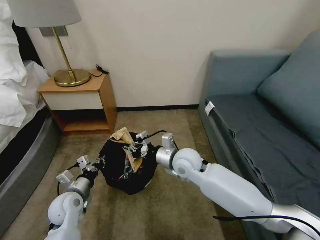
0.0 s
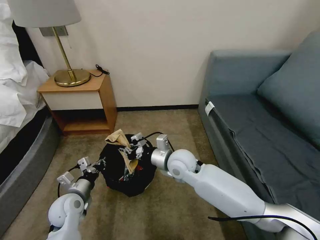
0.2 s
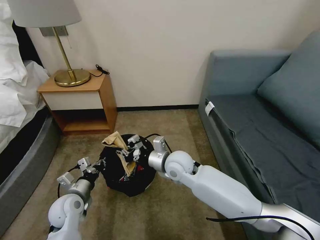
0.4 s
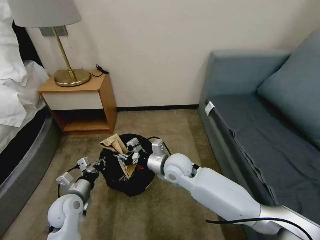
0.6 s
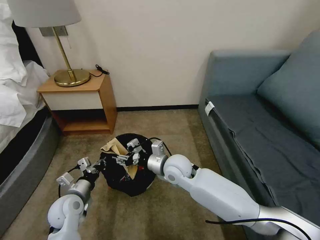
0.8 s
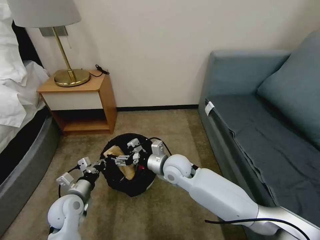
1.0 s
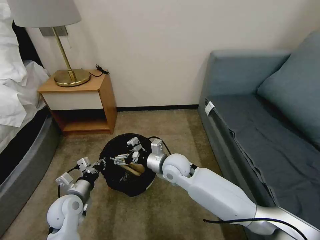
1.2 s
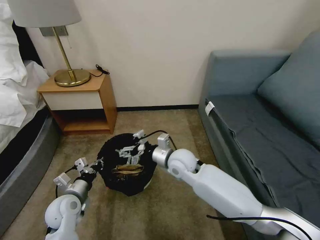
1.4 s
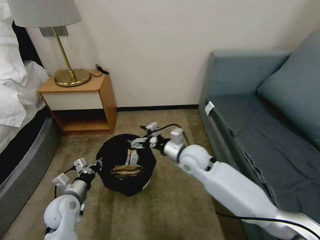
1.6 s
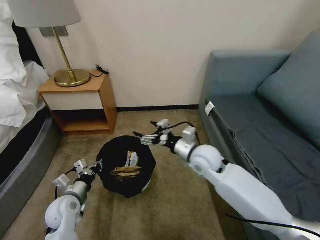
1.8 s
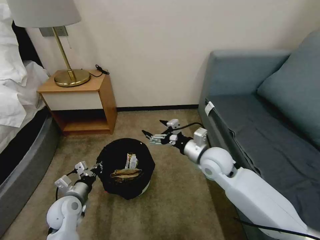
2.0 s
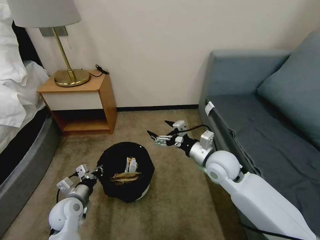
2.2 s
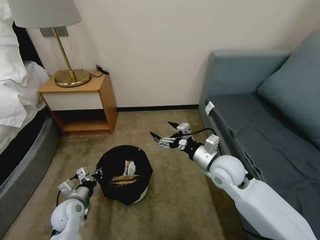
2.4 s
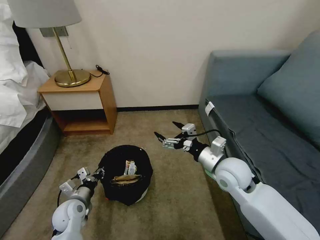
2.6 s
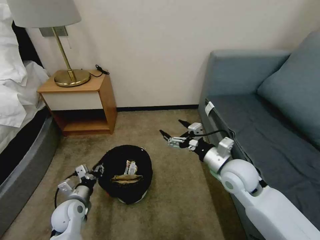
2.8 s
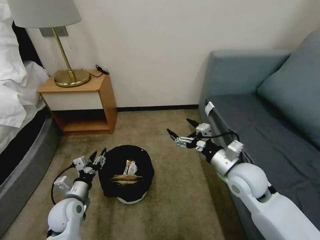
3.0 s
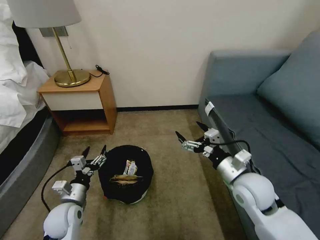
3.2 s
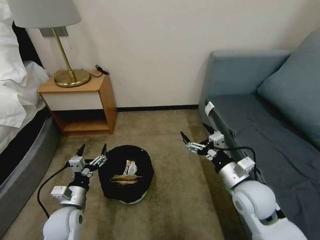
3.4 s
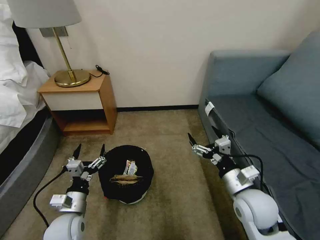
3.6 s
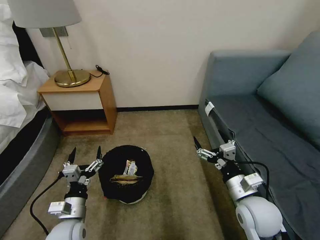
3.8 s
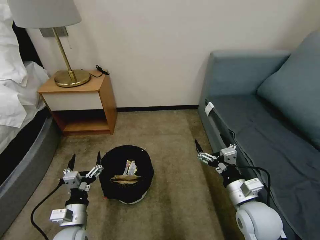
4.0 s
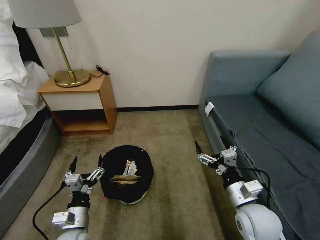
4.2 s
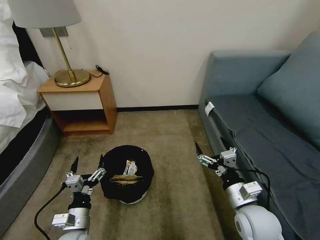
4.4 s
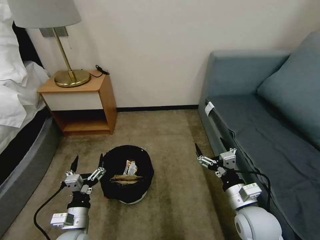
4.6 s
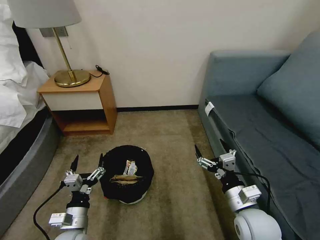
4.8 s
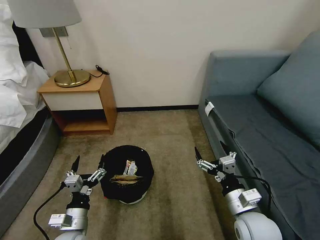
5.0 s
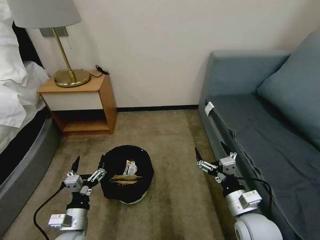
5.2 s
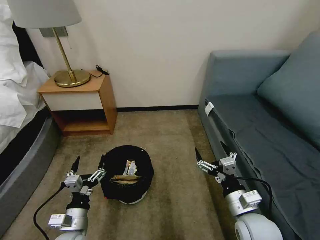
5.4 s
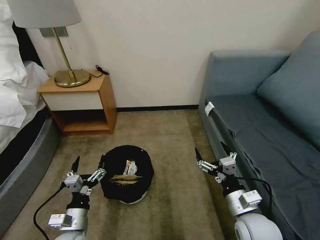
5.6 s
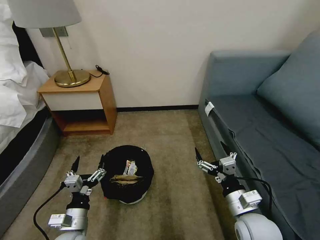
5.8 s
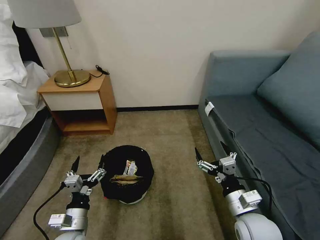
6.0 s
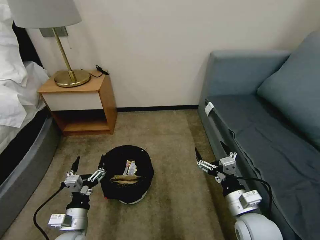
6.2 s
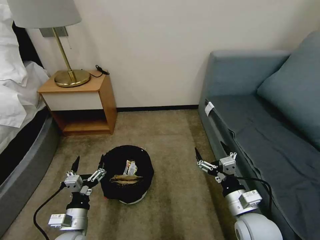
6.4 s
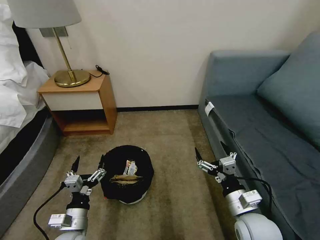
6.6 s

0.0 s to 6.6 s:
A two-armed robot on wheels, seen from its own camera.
Task of the whole recording: Pick up the trash bin, then pick up the garbage on the floor and place it into the trash bin.
0.0 to 1.6 s: The right gripper opens its fingers.
1.6 to 3.2 s: The left gripper opens up. Meanwhile the right gripper goes some 20 cm to the right and backward.
3.2 to 5.0 s: The right gripper heads backward and downward, covering some 10 cm; the left gripper goes roughly 10 cm backward.
5.0 to 6.6 s: Both grippers stay put.

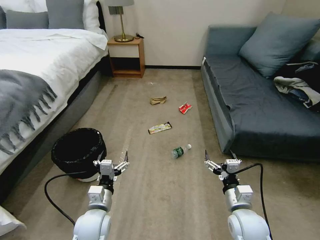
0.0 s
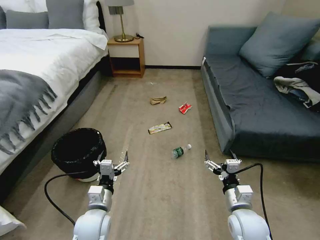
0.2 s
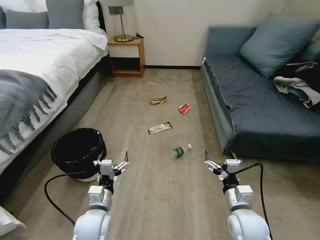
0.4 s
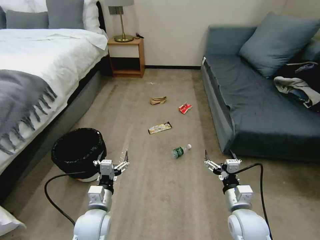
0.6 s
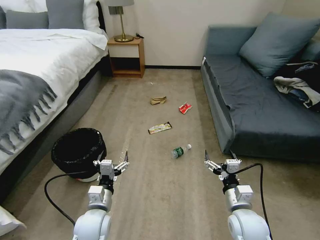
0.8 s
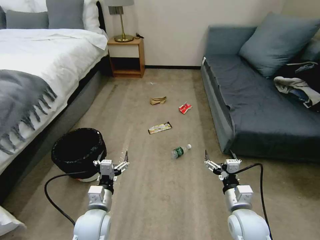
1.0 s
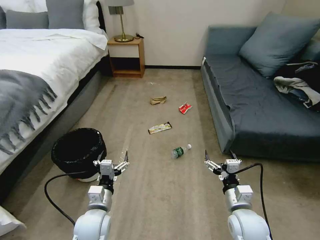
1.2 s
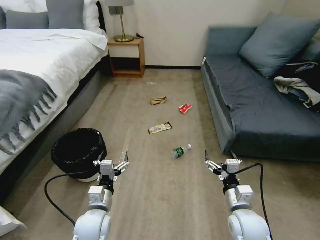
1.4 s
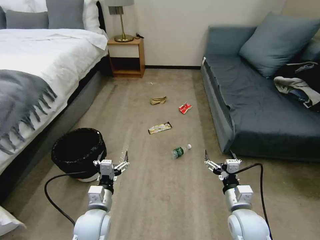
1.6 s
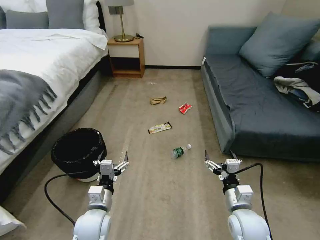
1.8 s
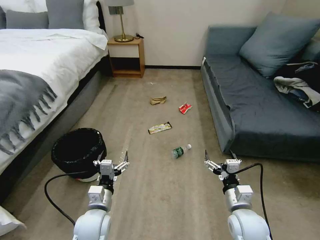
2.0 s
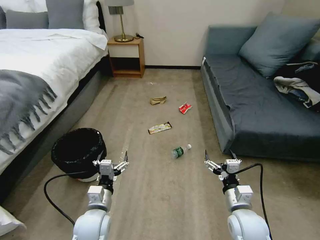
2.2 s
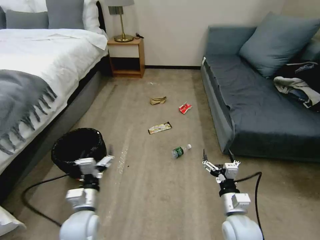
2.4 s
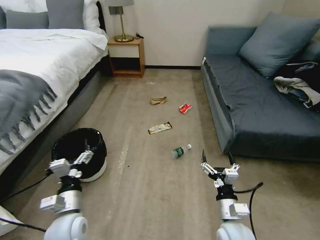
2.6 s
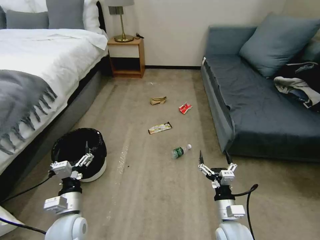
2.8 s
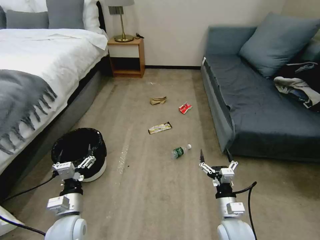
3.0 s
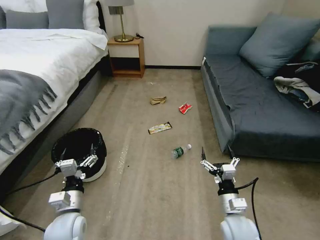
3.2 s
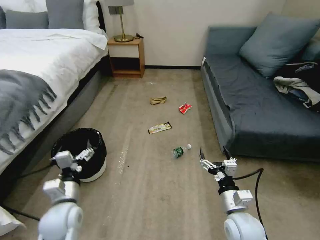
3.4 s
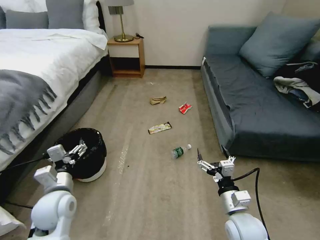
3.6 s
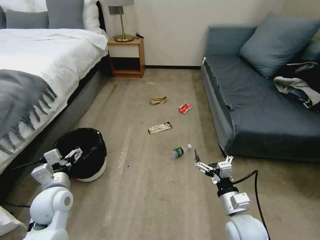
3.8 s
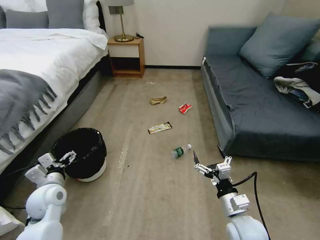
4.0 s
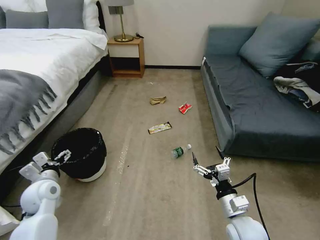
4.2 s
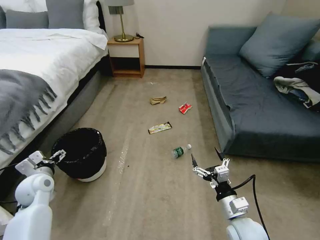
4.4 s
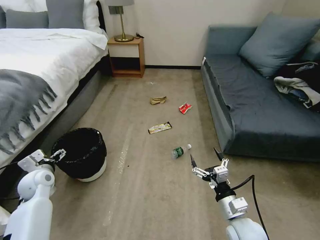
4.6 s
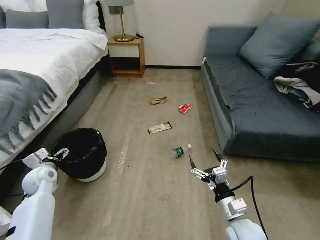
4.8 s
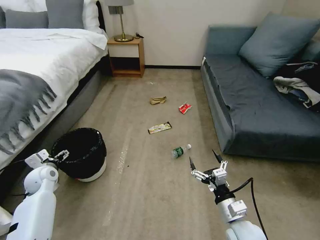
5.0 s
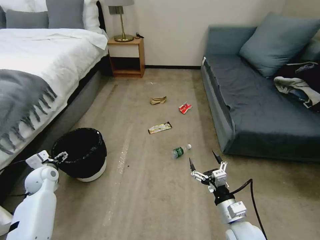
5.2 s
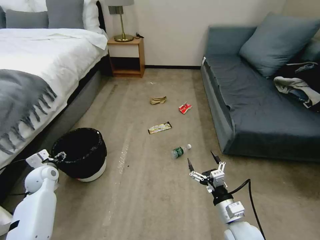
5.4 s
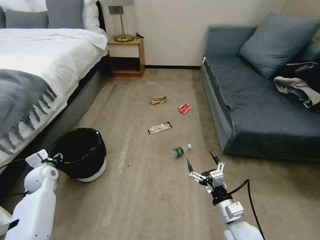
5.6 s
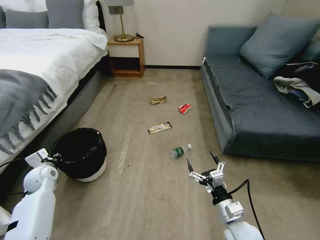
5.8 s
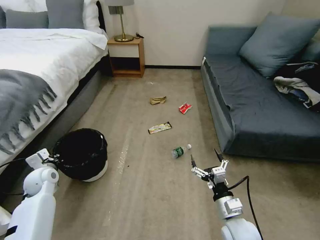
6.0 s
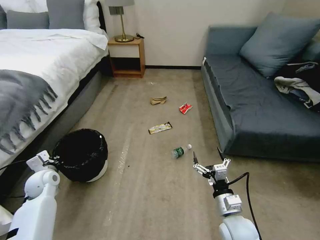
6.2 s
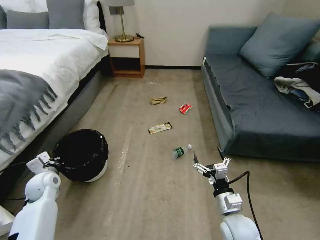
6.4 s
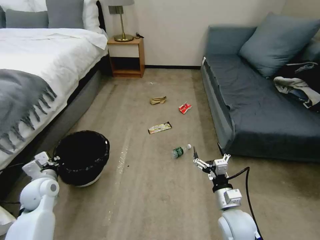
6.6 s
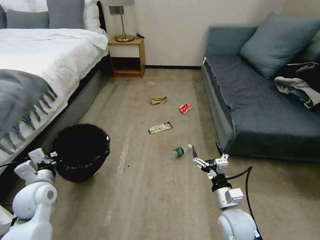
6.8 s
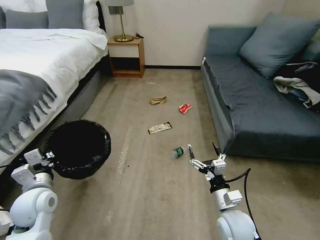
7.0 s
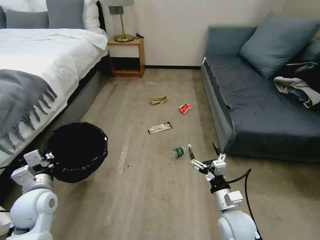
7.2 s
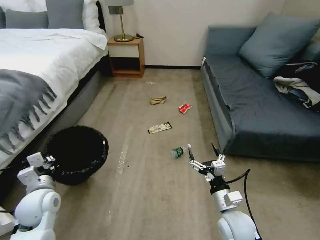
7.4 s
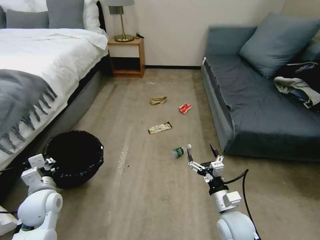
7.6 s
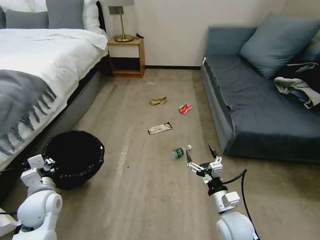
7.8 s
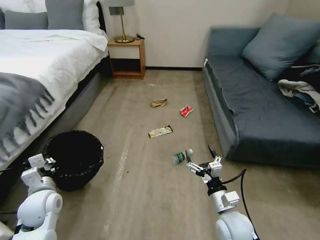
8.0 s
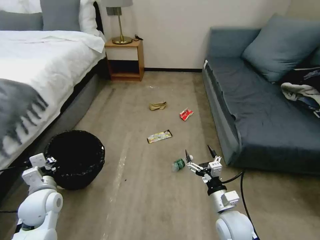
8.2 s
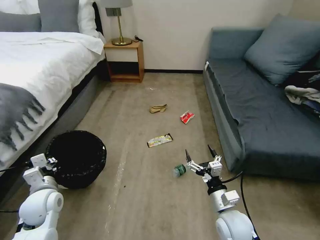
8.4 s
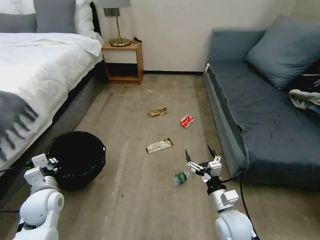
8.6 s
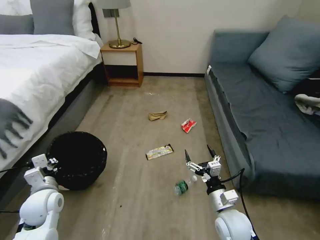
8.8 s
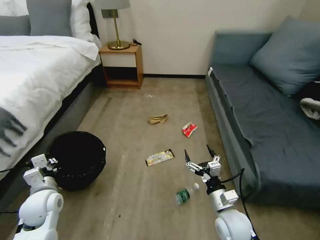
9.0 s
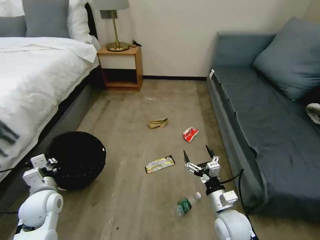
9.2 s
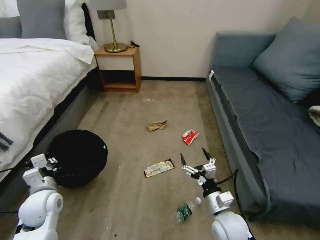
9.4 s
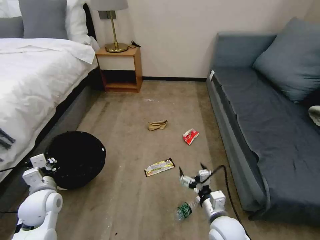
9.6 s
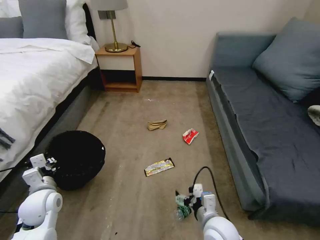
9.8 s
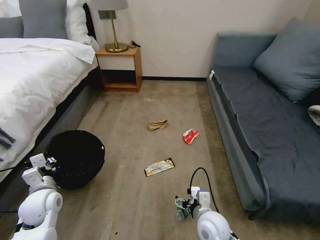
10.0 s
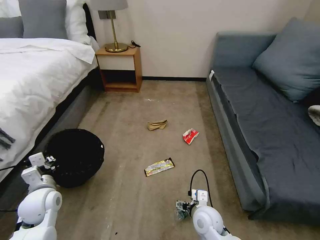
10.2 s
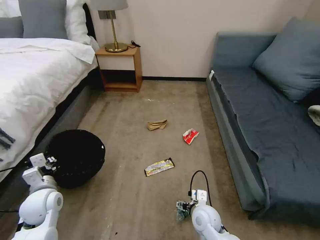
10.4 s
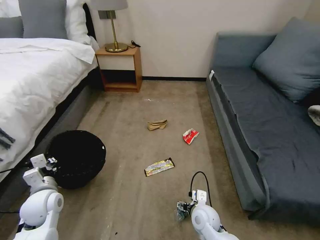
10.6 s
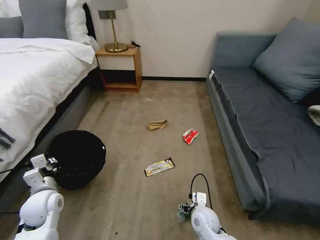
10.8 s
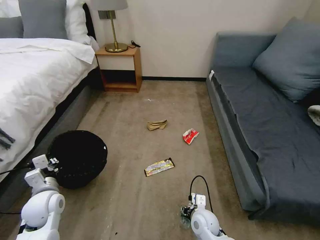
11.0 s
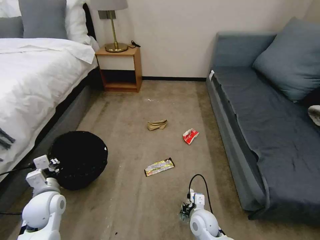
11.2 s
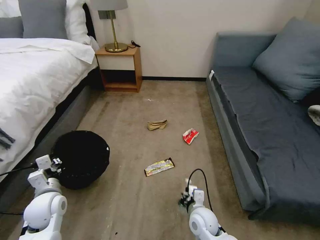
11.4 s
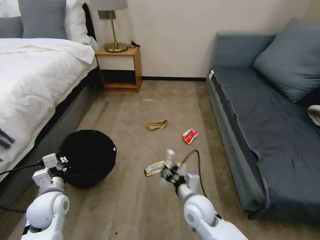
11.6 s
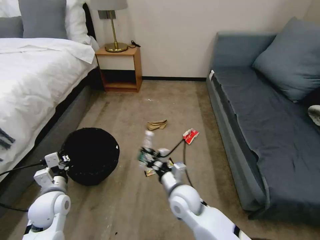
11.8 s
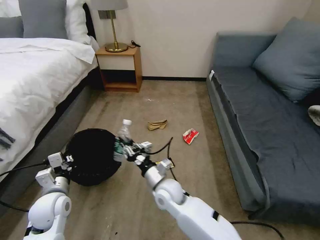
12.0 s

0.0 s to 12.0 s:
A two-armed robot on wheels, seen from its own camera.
Task of the whole recording: Pick up the trash bin, then pick up the garbage on the floor and place it into the trash bin.
1.6 to 3.0 s: The right gripper moves some 5 cm. The left gripper heads to the left, covering roughly 5 cm.
3.0 to 4.4 s: The left gripper is displaced to the left and forward by about 20 cm.
4.4 to 6.0 s: The left gripper moves roughly 5 cm, and closes.
6.0 to 7.6 s: The left gripper moves backward and to the right, some 10 cm.
9.0 to 10.4 s: The right gripper goes some 10 cm to the left and downward.
10.4 to 12.0 s: The right gripper goes approximately 15 cm to the left, upward and forward, and closes its fingers.

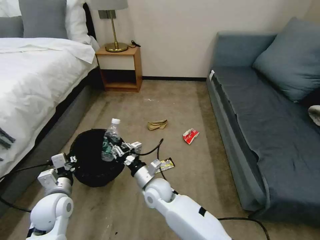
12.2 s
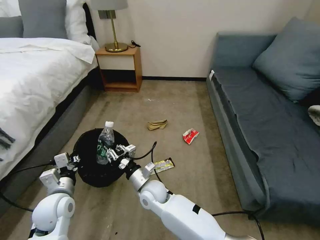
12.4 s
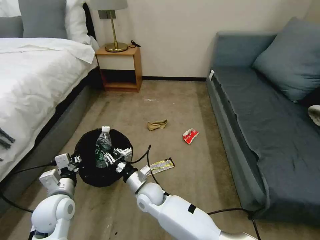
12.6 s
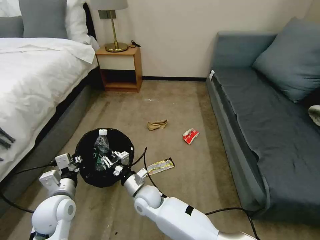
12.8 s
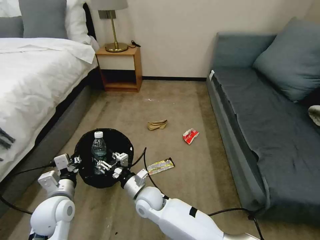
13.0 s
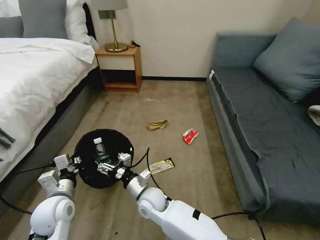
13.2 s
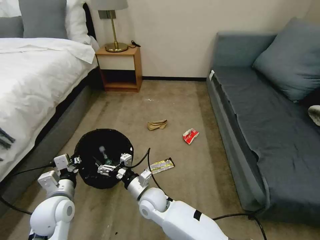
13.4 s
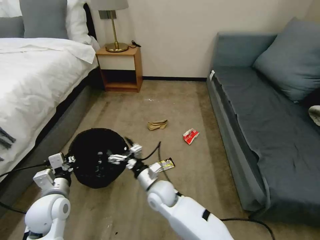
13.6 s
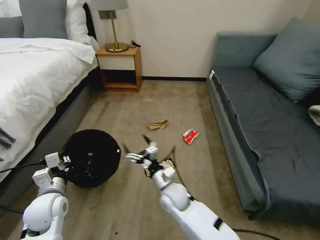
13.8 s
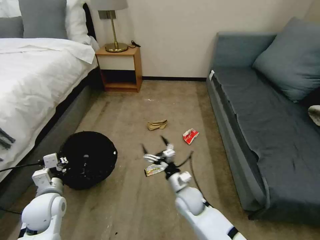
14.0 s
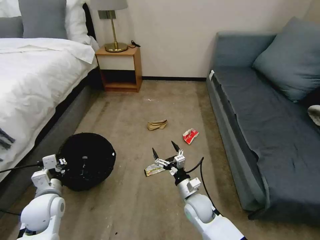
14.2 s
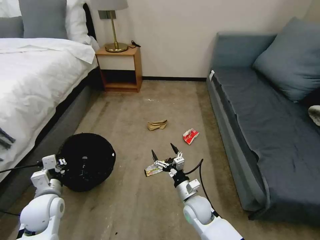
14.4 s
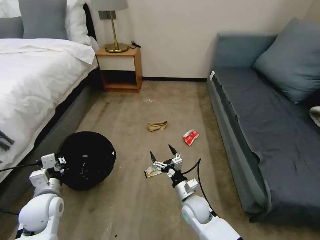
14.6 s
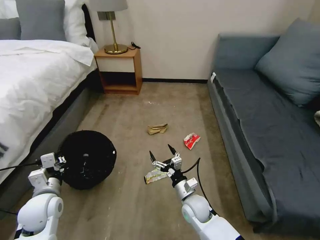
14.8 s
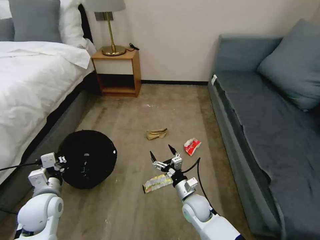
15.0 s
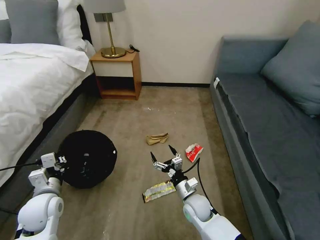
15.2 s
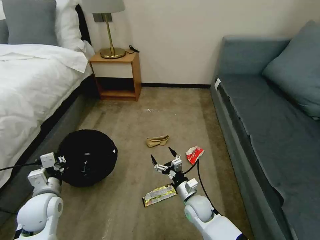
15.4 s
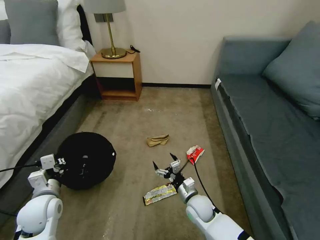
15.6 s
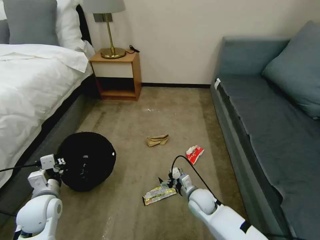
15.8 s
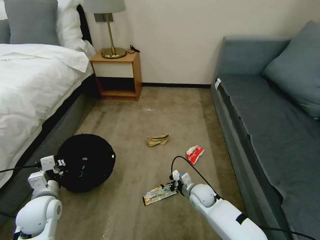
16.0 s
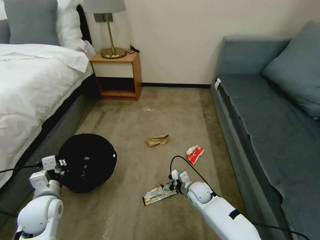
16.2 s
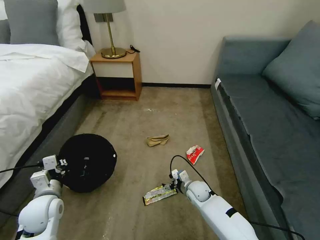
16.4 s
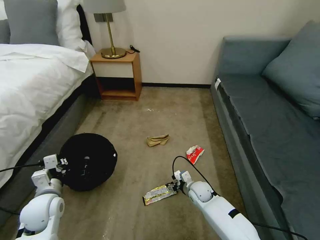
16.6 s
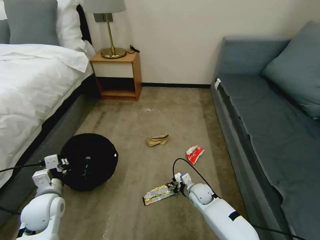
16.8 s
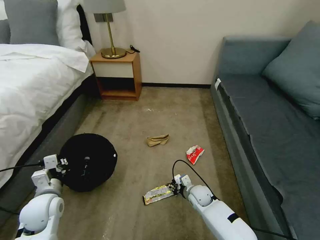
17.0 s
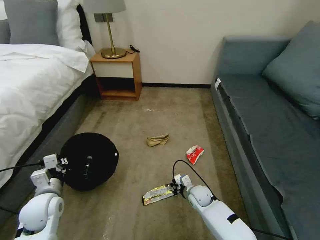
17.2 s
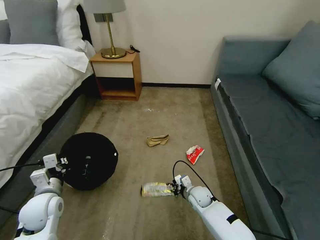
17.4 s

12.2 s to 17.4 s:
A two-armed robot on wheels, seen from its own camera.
Task of the whole recording: Pick up the trash bin, then pick up the garbage on the floor and place it into the trash bin.
12.2 to 14.0 s: The right gripper moves to the right, roughly 10 cm, and opens.
14.0 to 15.6 s: The right gripper changes place by roughly 5 cm.
15.6 to 17.4 s: The right gripper heads downward and forward, covering about 10 cm, and closes up.
